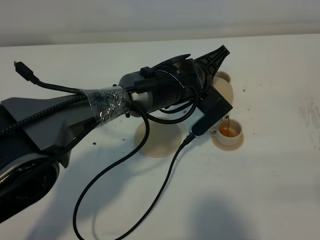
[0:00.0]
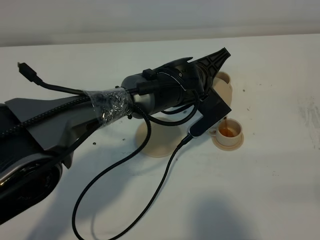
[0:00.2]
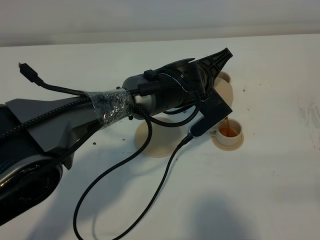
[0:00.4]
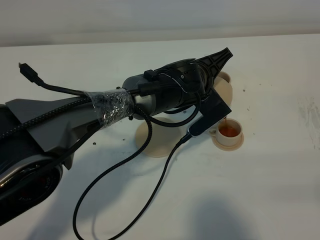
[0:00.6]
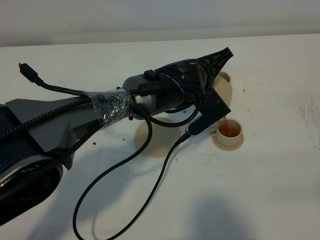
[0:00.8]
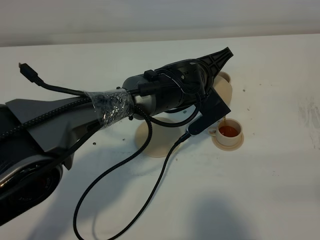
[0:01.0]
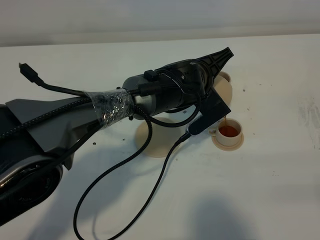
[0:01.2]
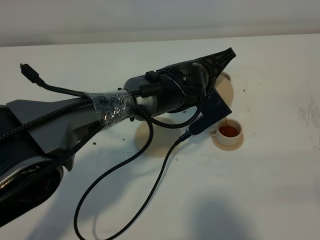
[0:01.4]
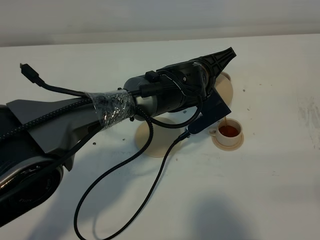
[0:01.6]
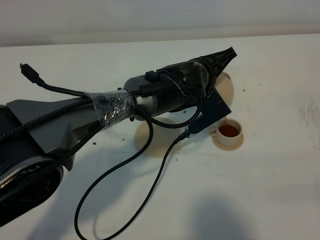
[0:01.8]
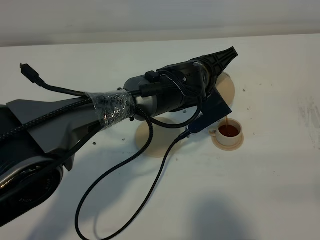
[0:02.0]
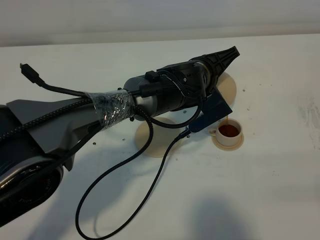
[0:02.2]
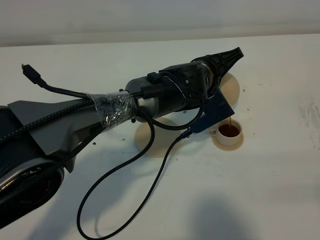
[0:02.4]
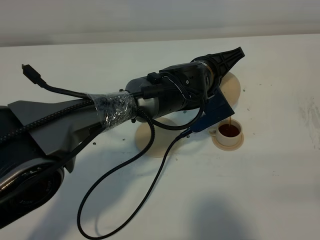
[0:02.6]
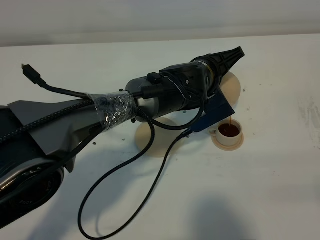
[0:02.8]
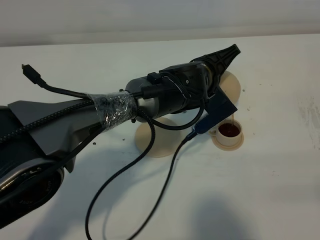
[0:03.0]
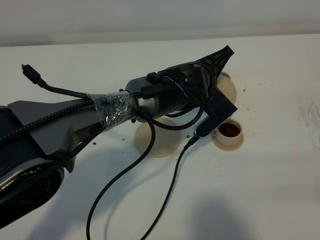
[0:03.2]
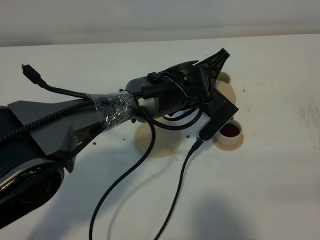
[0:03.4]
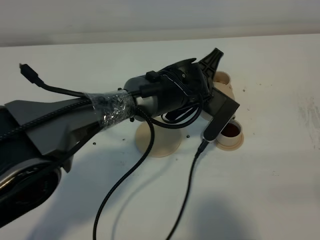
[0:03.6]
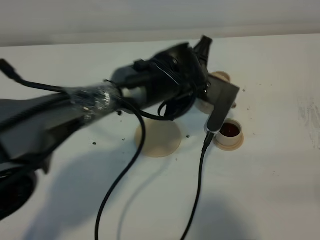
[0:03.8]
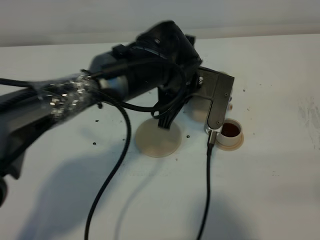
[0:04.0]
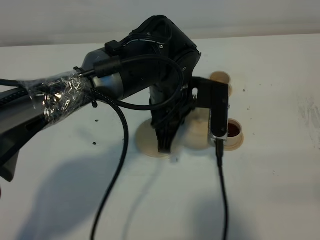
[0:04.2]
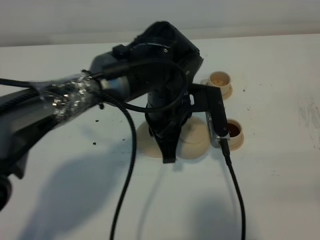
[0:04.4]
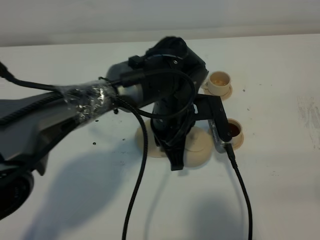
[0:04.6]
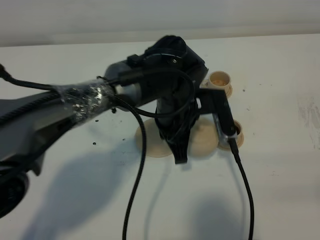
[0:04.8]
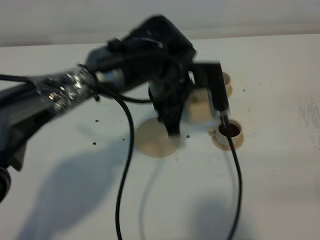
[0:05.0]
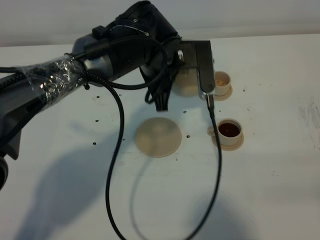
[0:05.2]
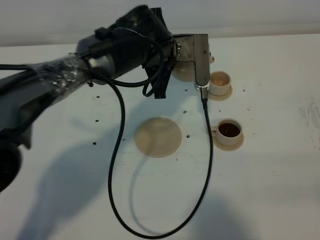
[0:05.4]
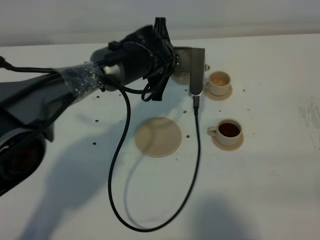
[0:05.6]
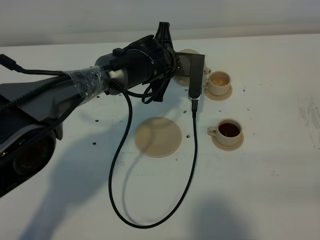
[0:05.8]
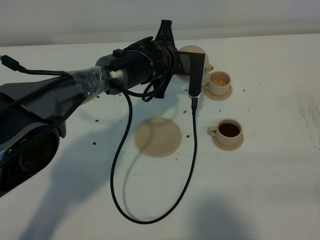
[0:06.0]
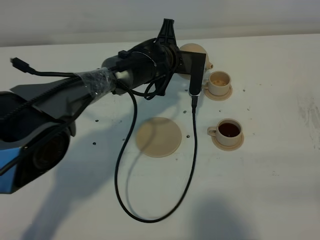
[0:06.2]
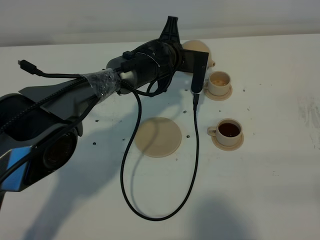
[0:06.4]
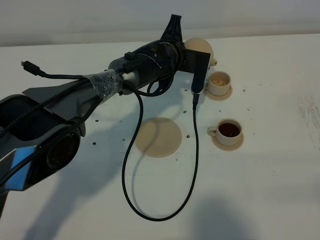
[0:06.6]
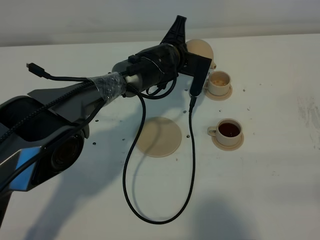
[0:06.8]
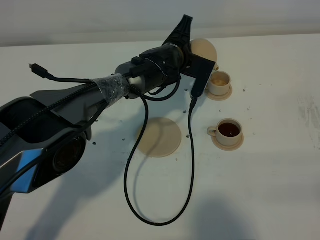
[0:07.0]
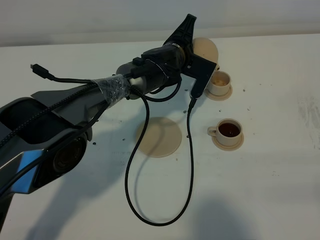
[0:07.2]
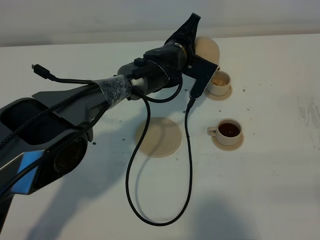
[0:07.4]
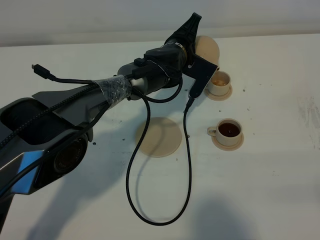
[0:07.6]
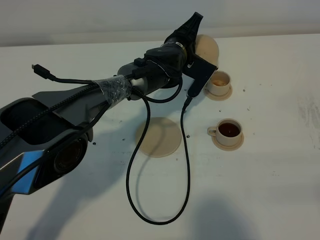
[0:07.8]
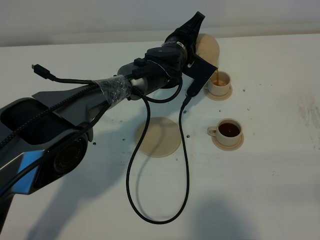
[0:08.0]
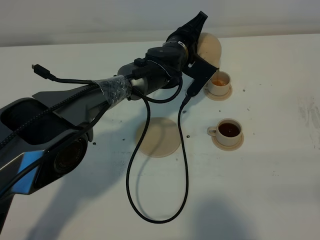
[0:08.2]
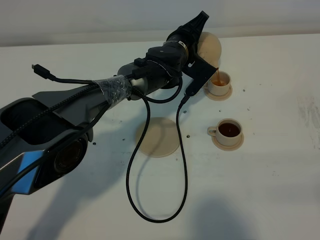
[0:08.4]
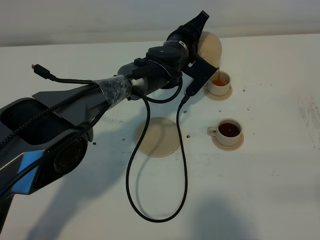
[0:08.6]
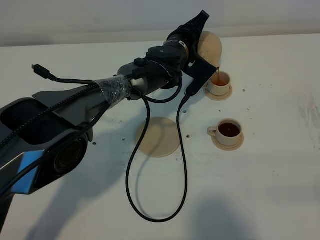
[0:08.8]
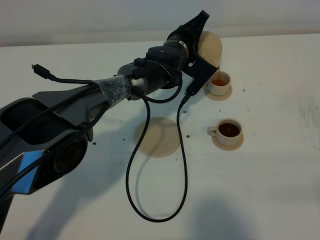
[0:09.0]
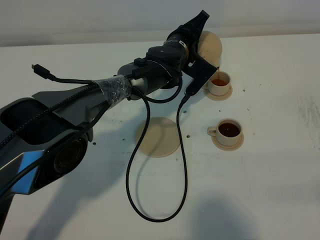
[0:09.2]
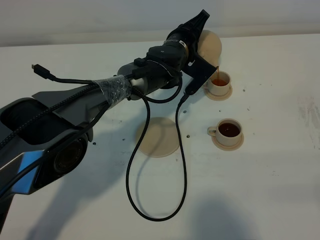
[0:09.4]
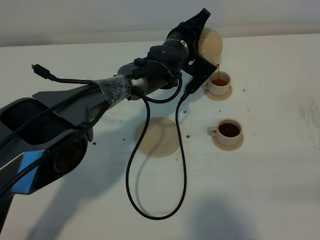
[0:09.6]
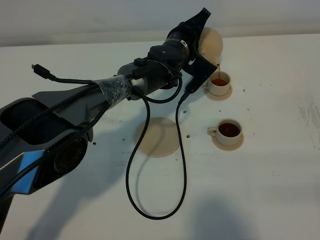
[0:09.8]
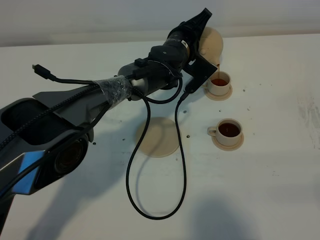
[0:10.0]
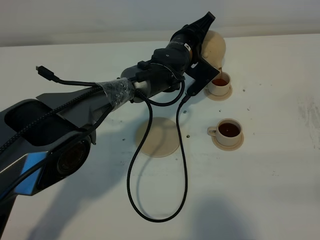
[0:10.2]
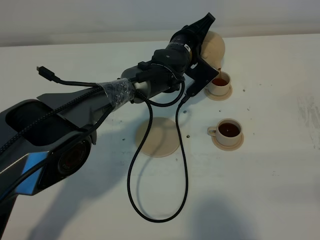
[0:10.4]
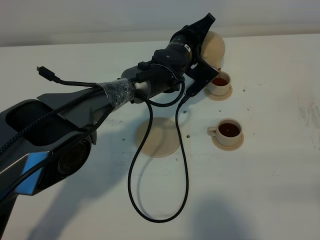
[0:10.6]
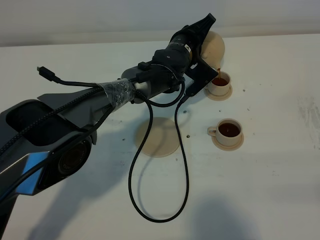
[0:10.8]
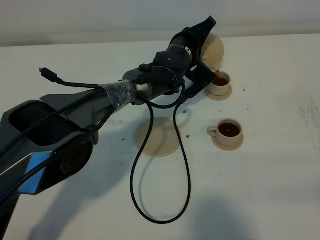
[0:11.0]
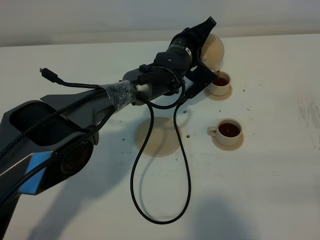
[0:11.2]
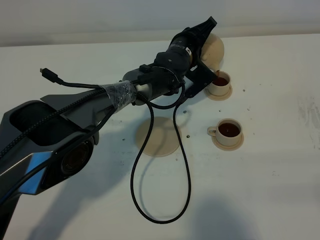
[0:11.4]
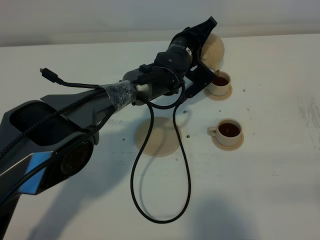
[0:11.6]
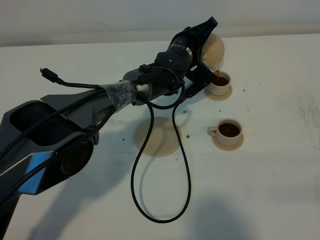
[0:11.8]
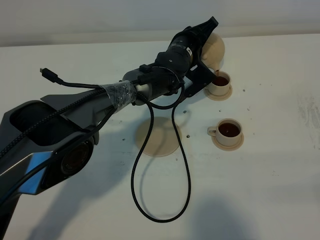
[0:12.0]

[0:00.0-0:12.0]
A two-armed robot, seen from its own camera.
Task of the whole recording: grasp the brown teapot and pour the tea into the two brown teacups one by one, put the brown teapot back in its original place.
Step, 0:00.0 to 0:03.4: Pour tea into the teacup with the left gripper.
0:00.0 to 0:03.0: The grippers make only small movements.
0:03.0 to 0:04.4: The left gripper heads backward, covering approximately 5 cm.
0:04.4 to 0:06.0: The left gripper is displaced forward by approximately 15 cm.
0:07.6 to 0:10.4: The grippers make only small movements.
0:10.4 to 0:12.0: There are only small adjustments of the grippers.

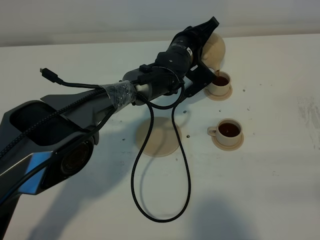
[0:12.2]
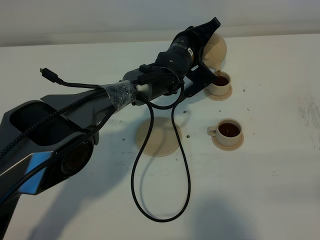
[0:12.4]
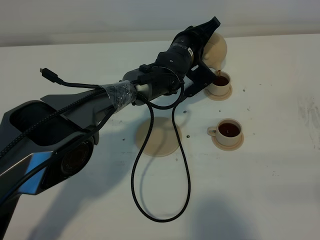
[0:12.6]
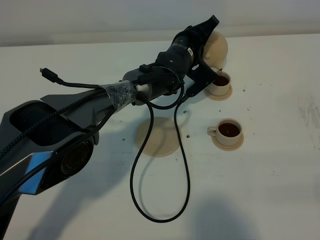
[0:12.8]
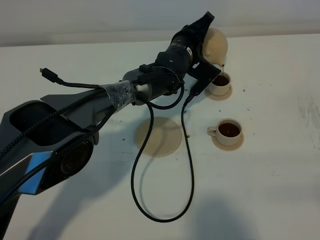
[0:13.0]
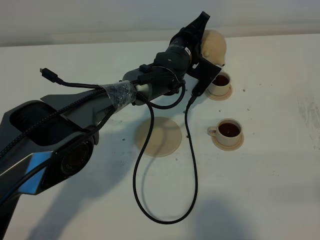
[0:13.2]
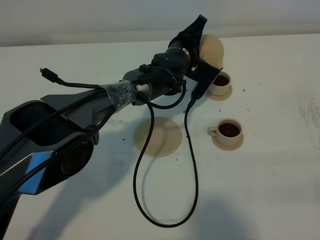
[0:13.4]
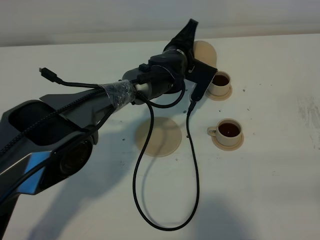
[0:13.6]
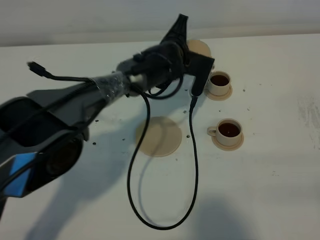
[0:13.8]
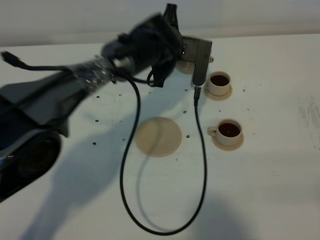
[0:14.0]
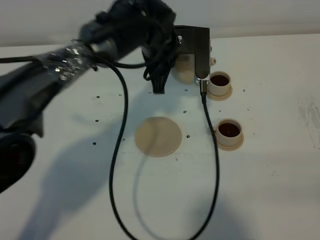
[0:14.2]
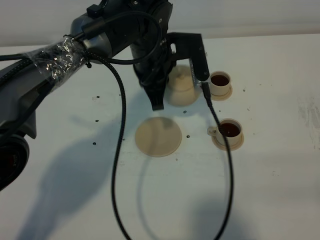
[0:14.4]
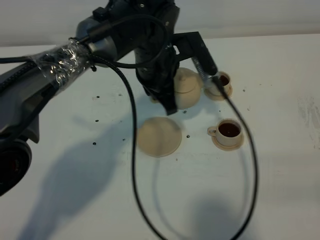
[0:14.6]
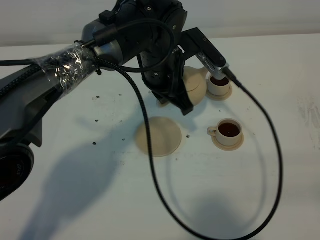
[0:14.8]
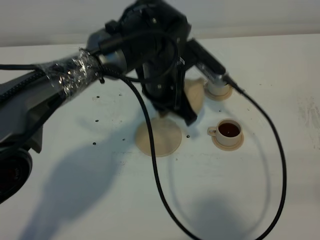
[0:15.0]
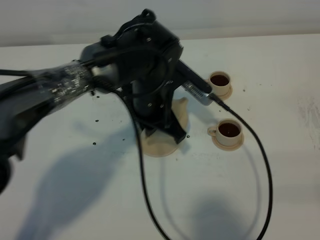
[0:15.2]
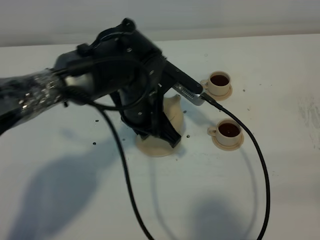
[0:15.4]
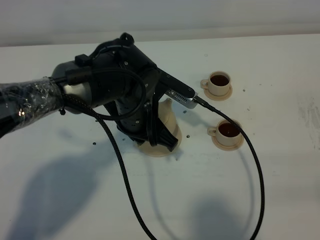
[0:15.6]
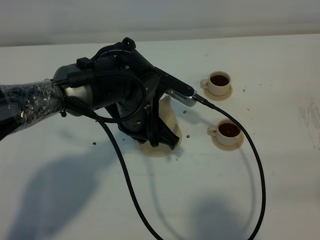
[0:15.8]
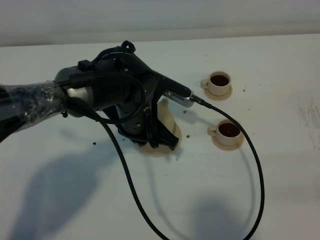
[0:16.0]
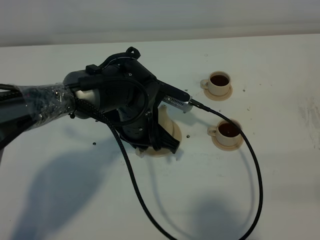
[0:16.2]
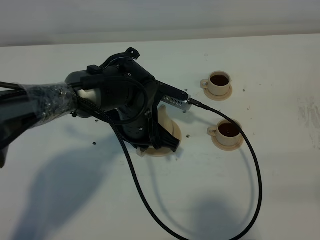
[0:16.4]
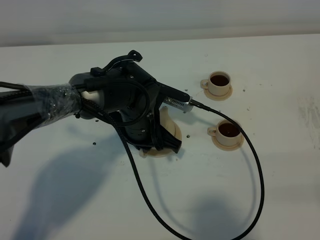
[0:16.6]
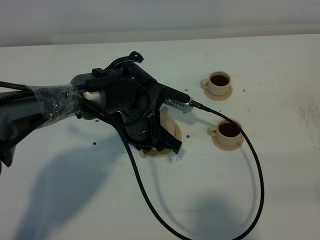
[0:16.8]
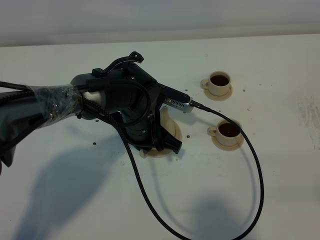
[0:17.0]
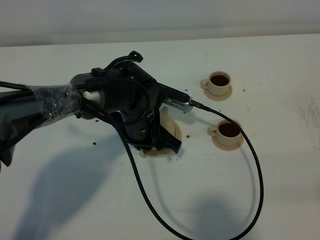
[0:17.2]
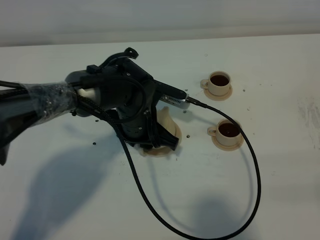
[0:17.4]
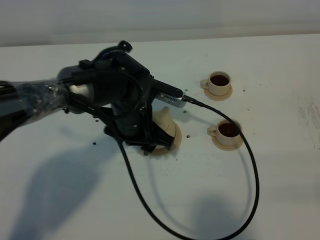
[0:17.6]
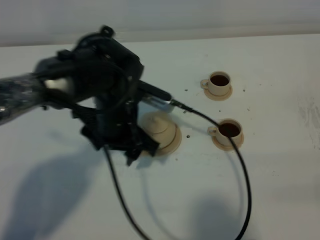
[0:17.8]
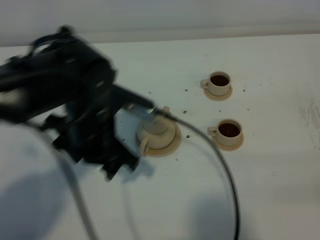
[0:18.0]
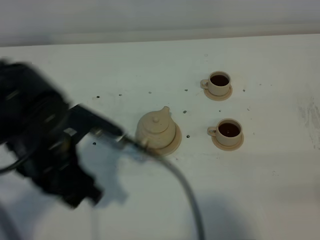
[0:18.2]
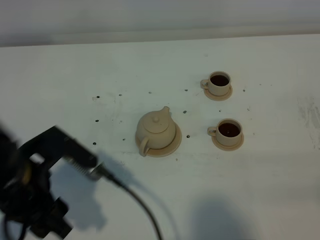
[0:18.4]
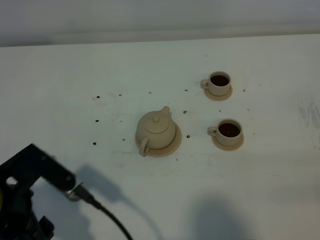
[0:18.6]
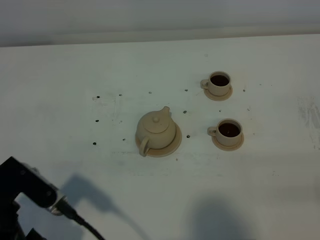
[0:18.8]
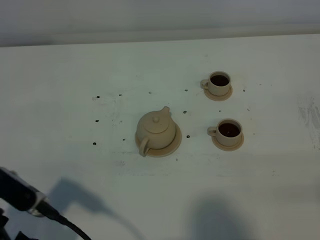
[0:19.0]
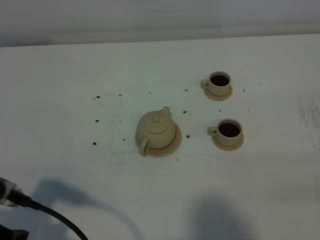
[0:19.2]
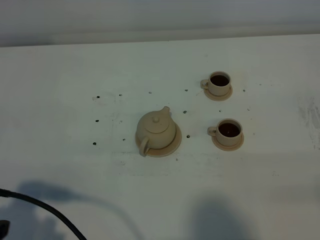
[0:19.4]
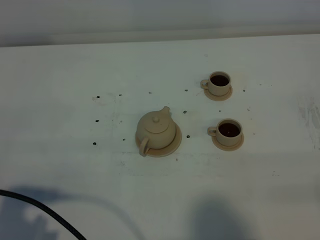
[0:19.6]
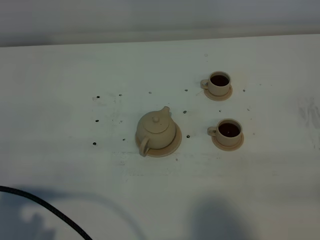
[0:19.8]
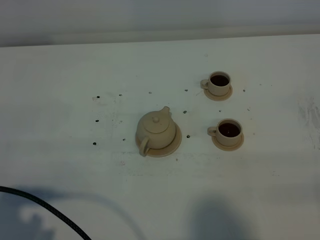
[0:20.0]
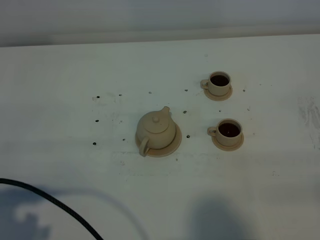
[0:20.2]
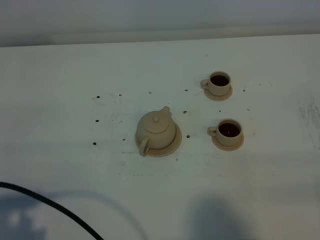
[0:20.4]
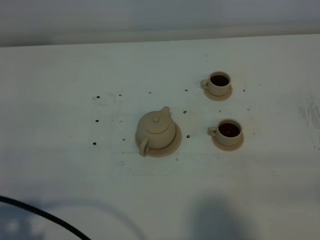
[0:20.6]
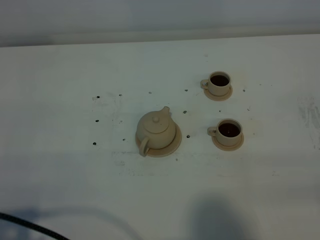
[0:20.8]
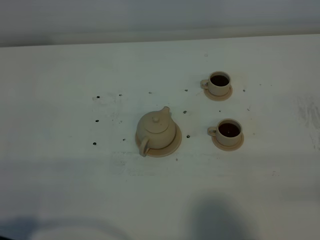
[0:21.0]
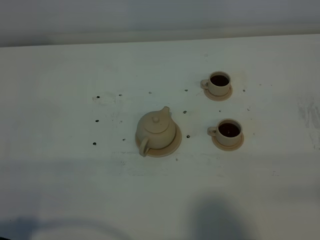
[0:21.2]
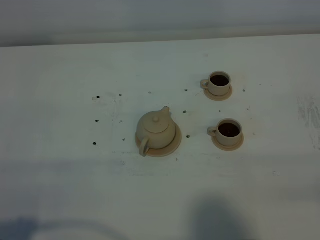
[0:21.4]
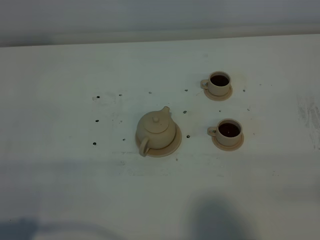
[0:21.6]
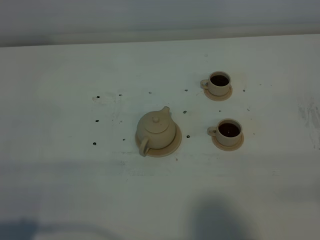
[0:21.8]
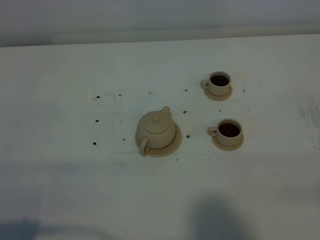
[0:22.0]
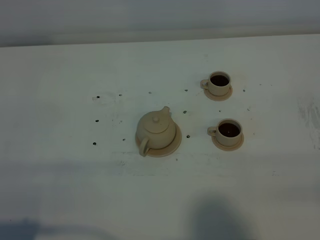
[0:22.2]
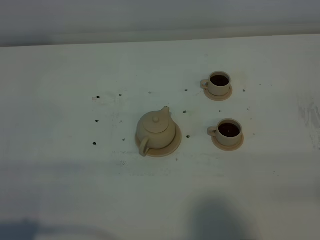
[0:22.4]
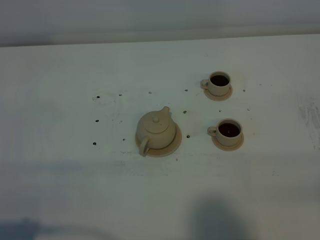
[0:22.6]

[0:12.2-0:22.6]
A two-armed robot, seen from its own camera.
Task of the whole recording: grasp the brown teapot and pour the tea into the two brown teacups one by one, put the brown teapot back in its original place.
0:13.6 to 0:15.2: The left gripper travels backward and upward by about 15 cm.
0:15.2 to 0:16.6: The left gripper heads downward, covering approximately 5 cm.
0:16.6 to 0:18.2: The left gripper travels backward, to the left and upward by roughly 20 cm, and opens its fingers.
0:18.2 to 0:19.6: The left gripper shifts about 20 cm backward and to the left.
0:19.6 to 0:21.2: The left gripper goes roughly 5 cm backward.
